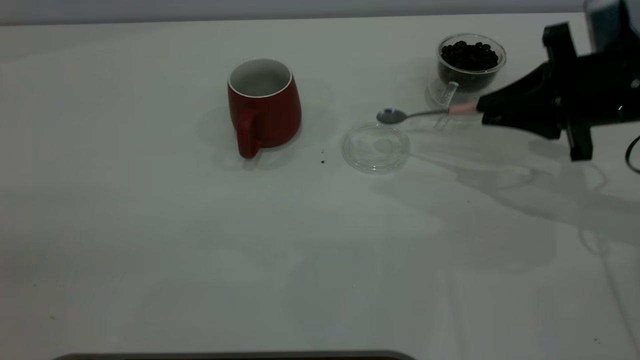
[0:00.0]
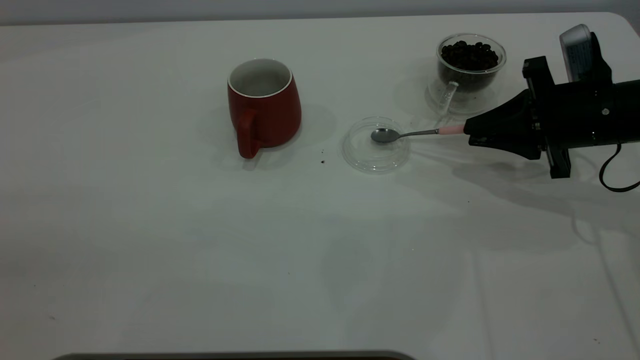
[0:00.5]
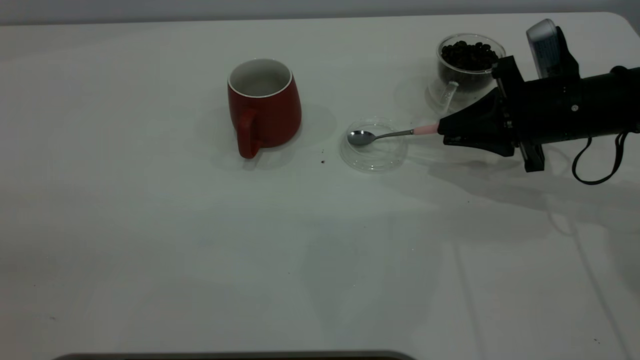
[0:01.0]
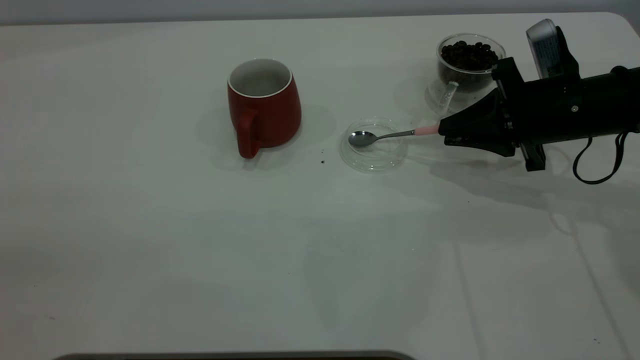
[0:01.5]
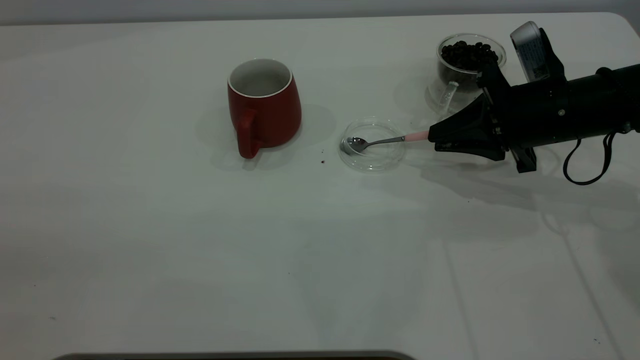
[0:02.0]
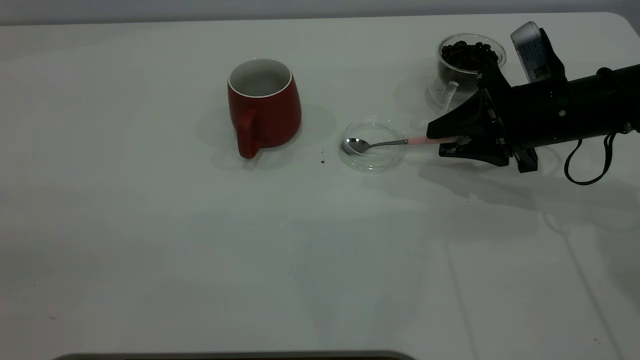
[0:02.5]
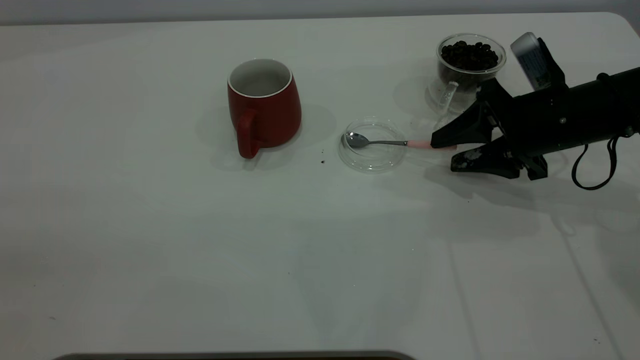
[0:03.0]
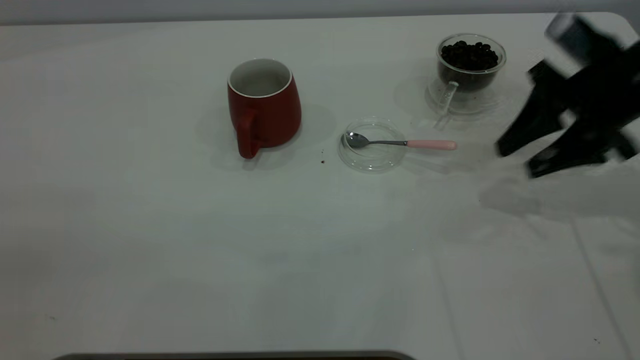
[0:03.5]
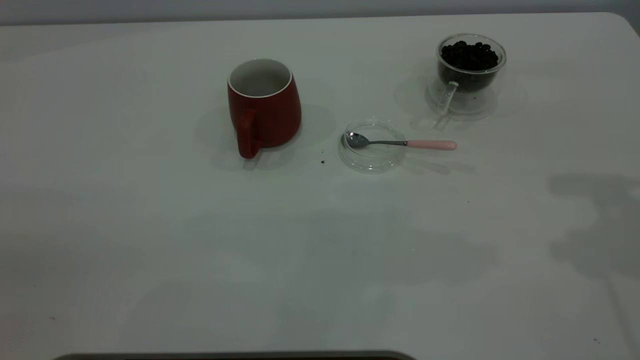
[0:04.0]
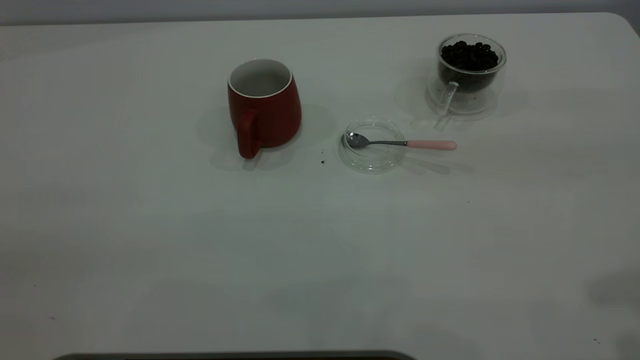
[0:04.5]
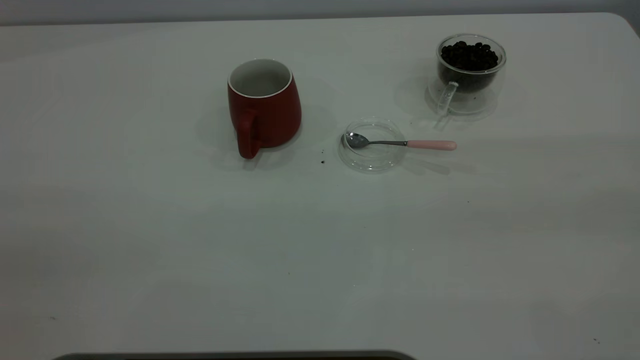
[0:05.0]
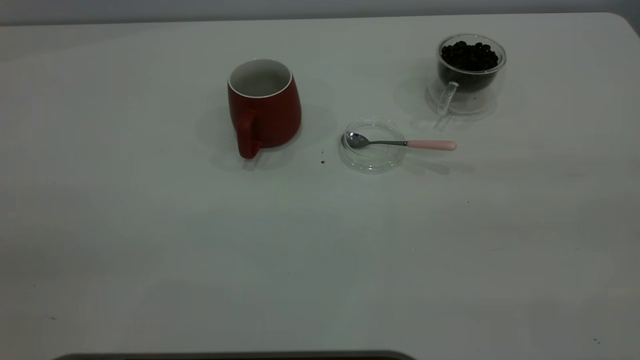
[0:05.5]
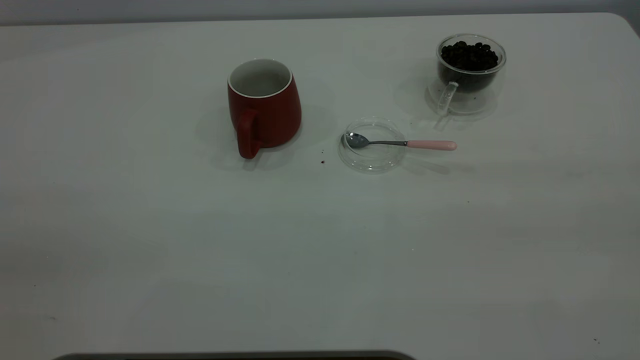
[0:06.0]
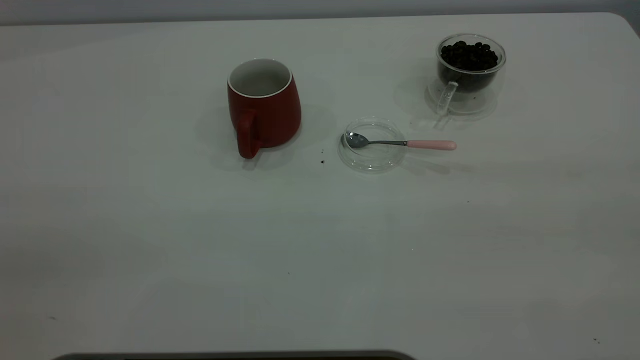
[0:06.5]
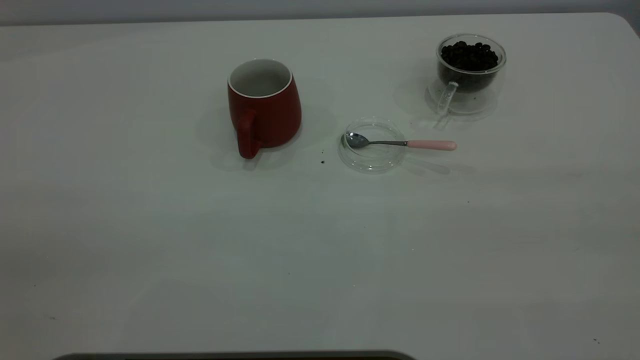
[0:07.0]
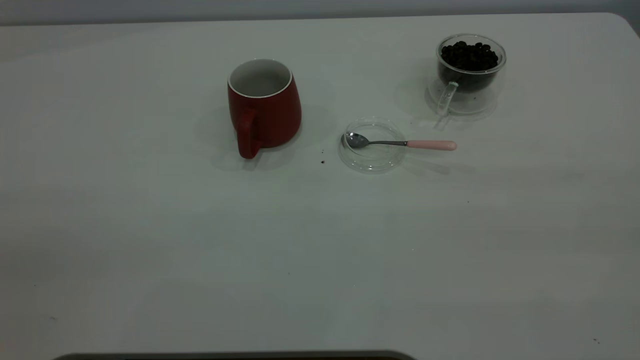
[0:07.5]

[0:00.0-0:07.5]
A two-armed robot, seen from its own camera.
Task of the whole recording: the left gripper place the red cup in the center of the table, the right gripper take the pink spoon from the cup lid and scoop out the coffee beans from the coffee cup and put them into the red cup, the right gripper put the spoon back into the cup lid.
Step, 0:00.0 to 0:03.0: Place the spoon back in its original place.
0:00.0 to 0:02.0: The right gripper shifts by roughly 5 cm.
0:02.0 to 0:04.0: The right gripper goes approximately 25 cm upward, and opens.
